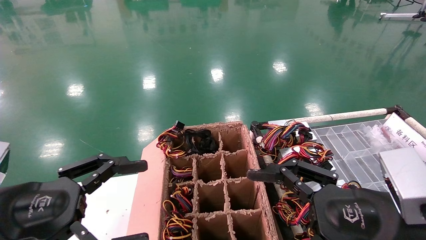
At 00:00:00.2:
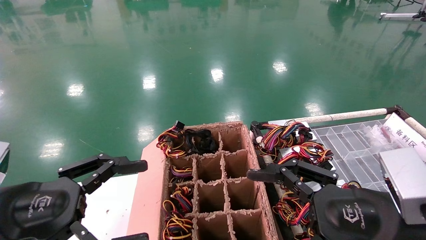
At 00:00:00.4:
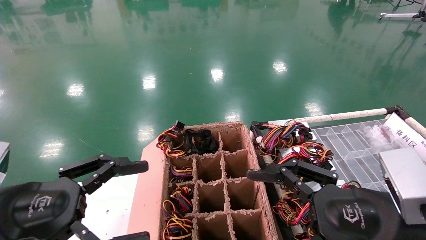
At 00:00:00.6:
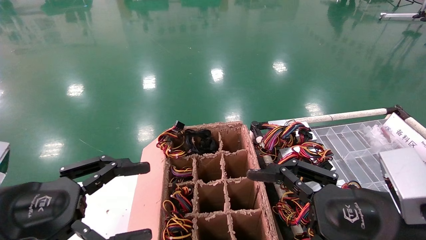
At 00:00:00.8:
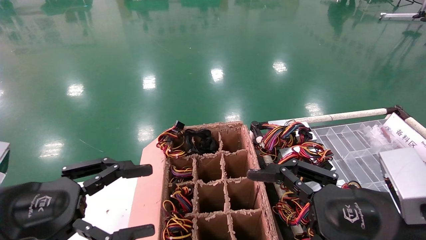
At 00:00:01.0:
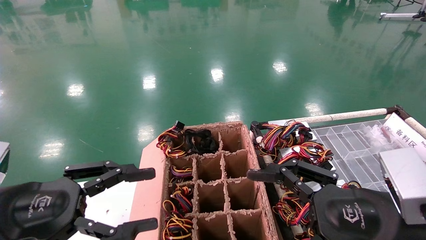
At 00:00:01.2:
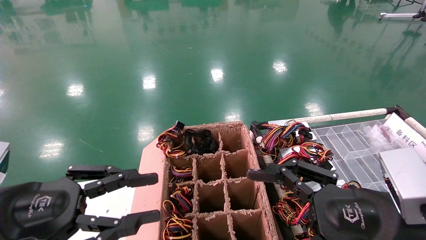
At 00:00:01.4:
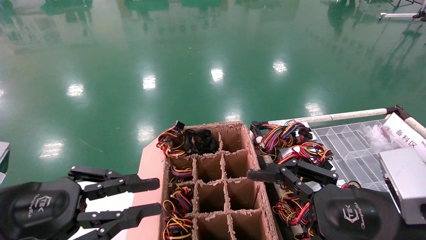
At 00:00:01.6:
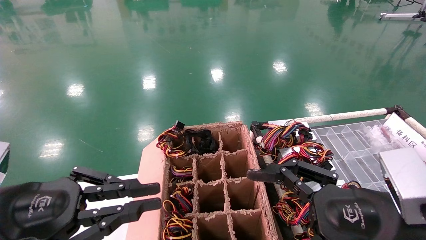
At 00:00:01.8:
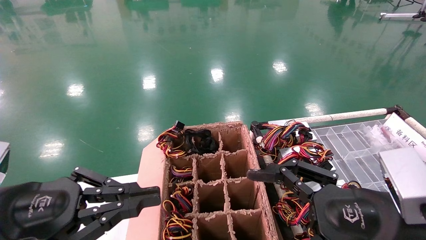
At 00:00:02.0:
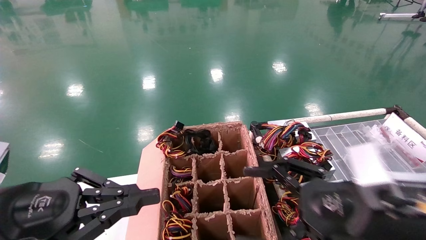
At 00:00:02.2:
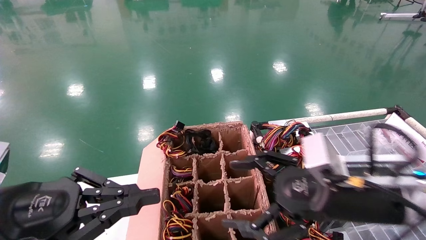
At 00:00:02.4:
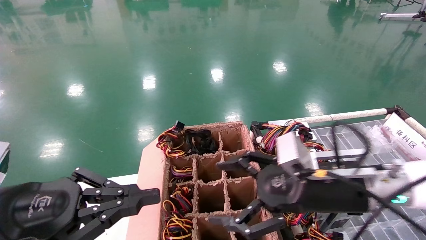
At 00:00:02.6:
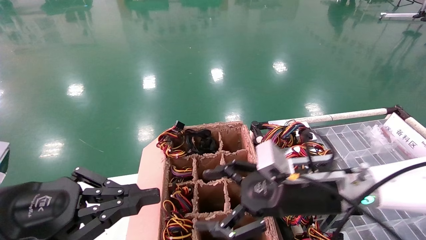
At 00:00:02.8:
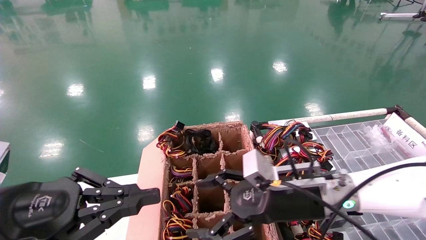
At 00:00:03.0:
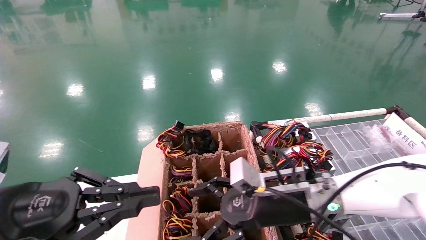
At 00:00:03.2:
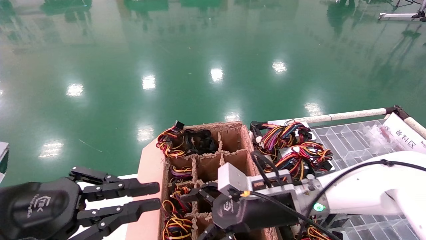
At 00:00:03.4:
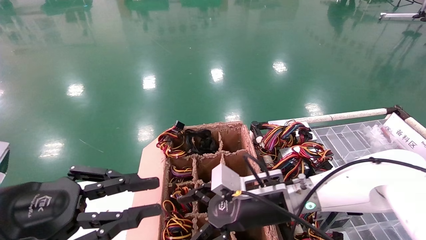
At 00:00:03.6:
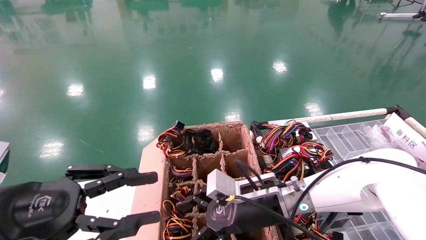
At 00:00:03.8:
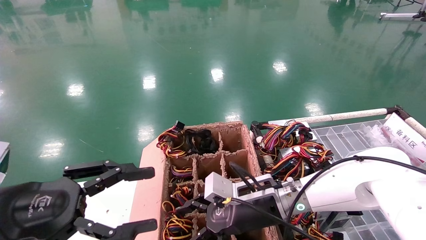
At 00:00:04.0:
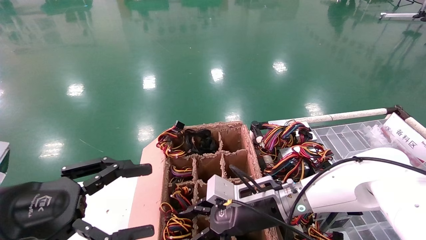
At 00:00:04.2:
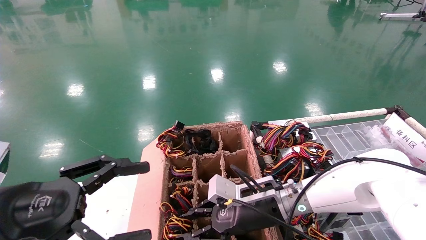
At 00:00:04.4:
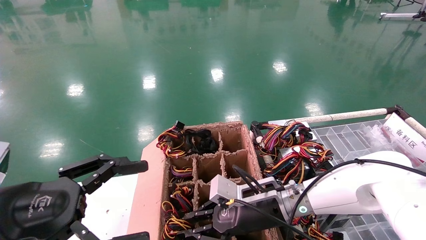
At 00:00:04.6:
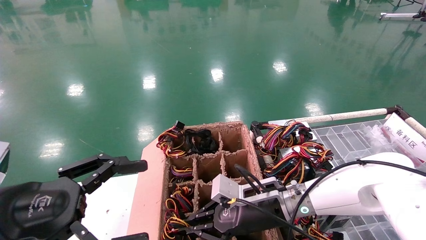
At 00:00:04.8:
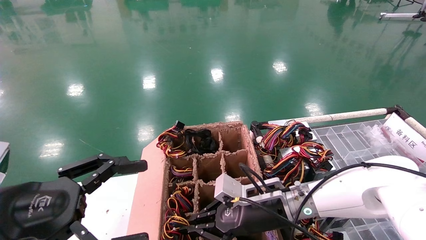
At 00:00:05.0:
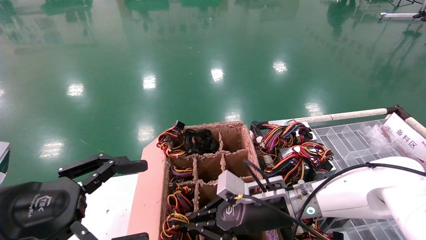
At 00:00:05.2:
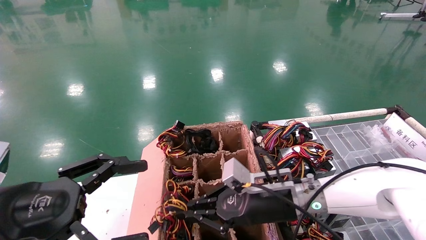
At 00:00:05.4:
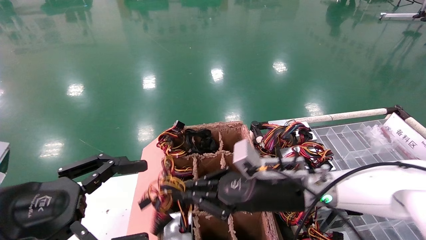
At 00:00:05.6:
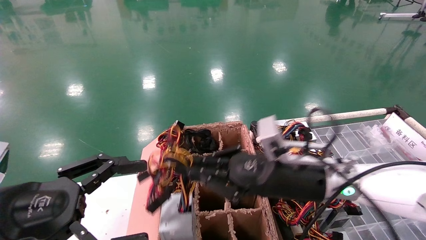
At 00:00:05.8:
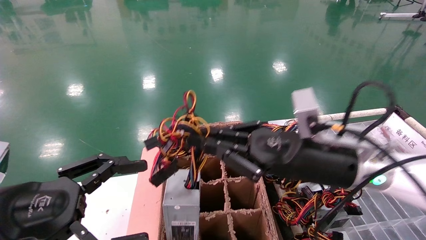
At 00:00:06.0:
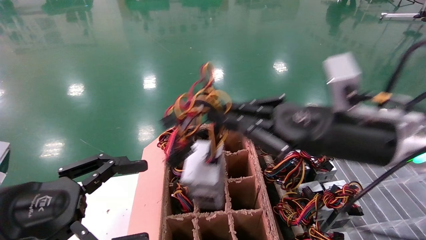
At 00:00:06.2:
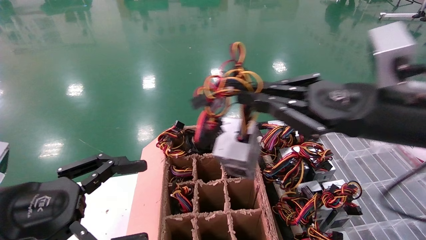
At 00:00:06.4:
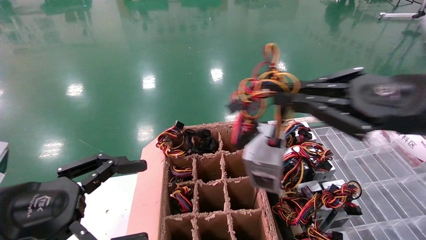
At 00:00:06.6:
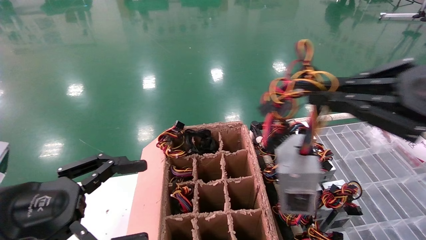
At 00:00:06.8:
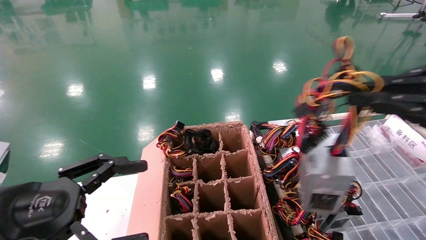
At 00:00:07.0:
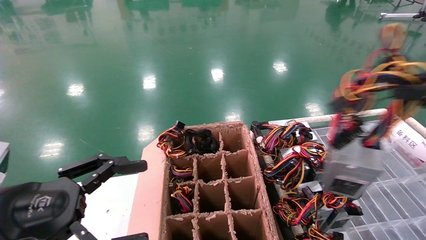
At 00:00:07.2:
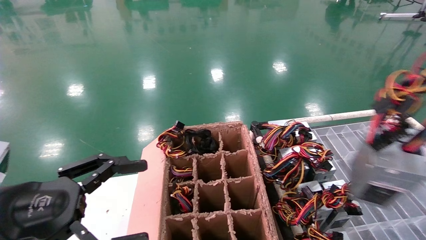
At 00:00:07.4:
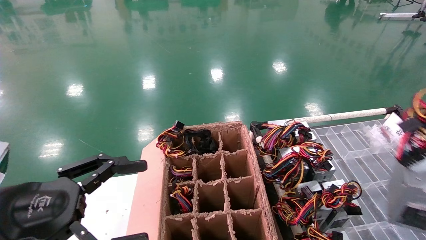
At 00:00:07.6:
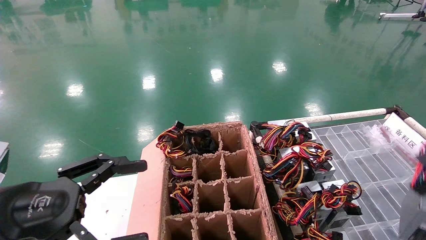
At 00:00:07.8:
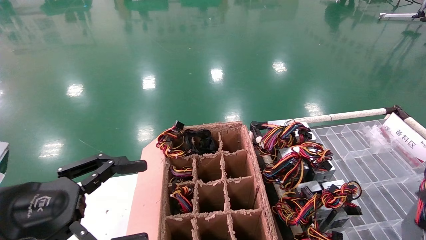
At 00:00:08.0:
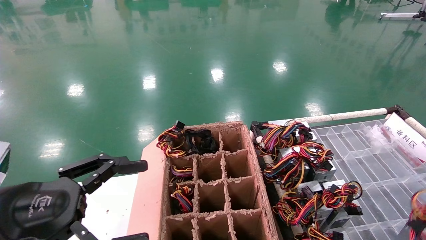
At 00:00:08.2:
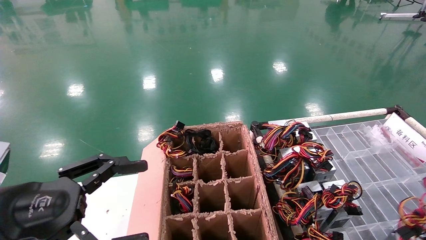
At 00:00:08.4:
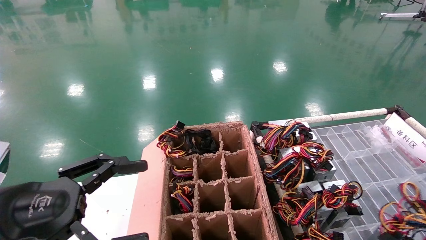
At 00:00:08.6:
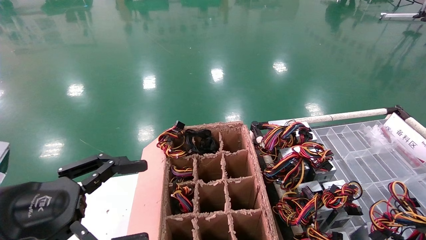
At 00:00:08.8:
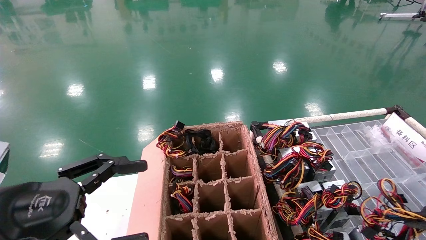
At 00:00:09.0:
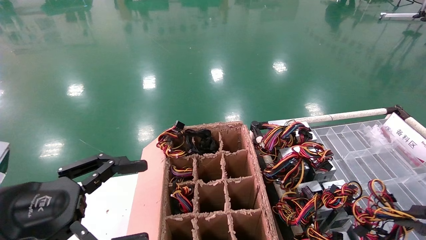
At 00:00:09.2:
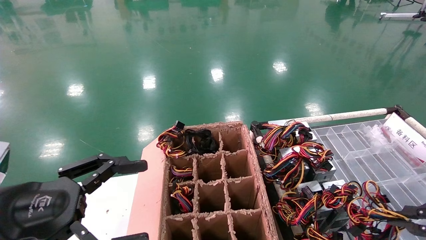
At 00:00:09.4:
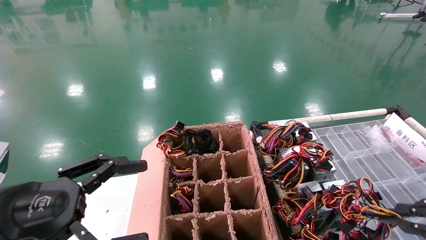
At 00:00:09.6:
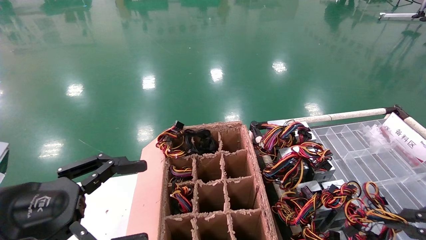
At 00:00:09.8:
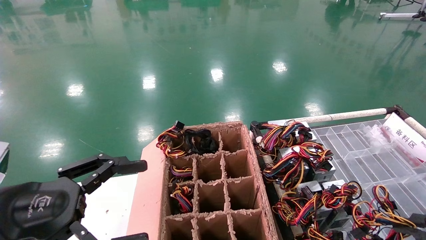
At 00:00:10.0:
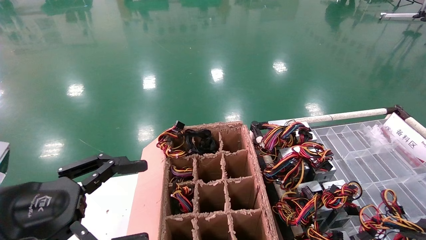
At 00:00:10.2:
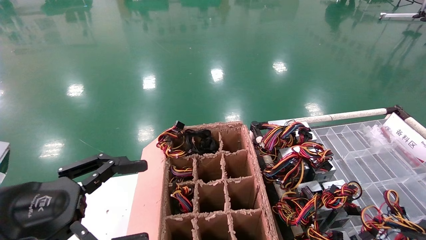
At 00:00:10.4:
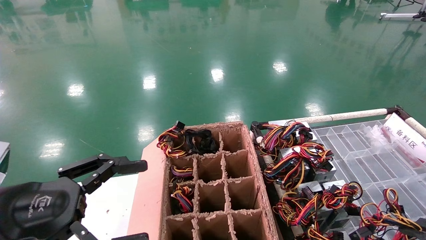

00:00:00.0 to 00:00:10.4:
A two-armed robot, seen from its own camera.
Step, 00:00:02.2 to 00:00:04.8: Grab and lift the power supply from the large box.
00:00:00.0 to 00:00:01.4: The left gripper closes up.
00:00:01.4 to 00:00:03.0: The right gripper shifts roughly 20 cm forward and to the left.
00:00:03.0 to 00:00:04.4: The right gripper moves some 5 cm, and closes its fingers. Meanwhile the left gripper opens.
00:00:04.4 to 00:00:06.0: The right gripper is displaced upward, to the right and backward by approximately 20 cm.
00:00:06.0 to 00:00:07.4: The right gripper shifts about 30 cm backward and to the right.
00:00:07.4 to 00:00:09.0: The right gripper moves downward and forward, some 15 cm.
00:00:09.0 to 00:00:10.4: The right gripper moves downward and to the right, roughly 10 cm.

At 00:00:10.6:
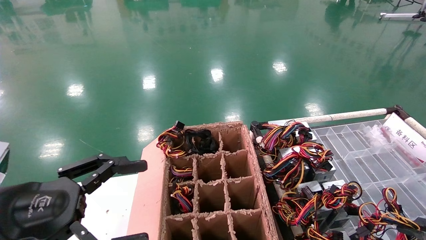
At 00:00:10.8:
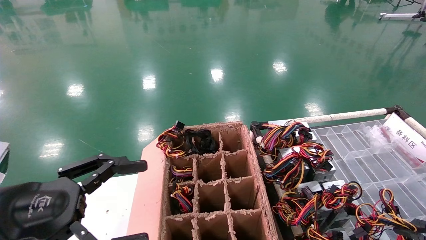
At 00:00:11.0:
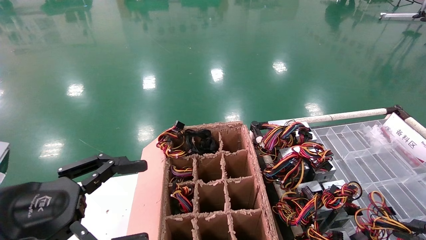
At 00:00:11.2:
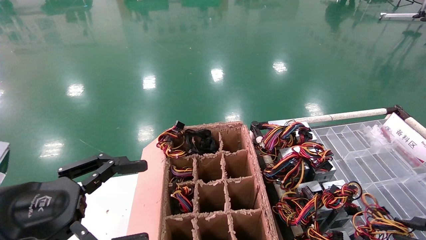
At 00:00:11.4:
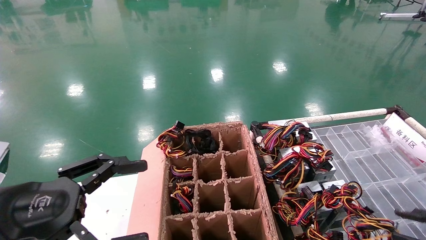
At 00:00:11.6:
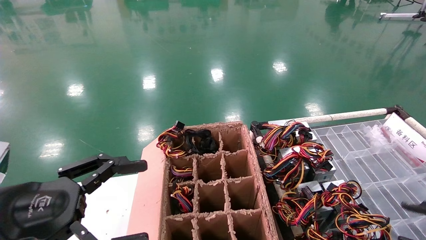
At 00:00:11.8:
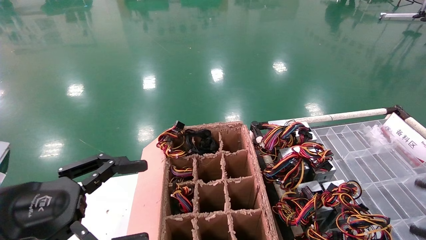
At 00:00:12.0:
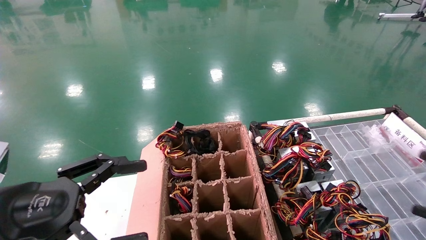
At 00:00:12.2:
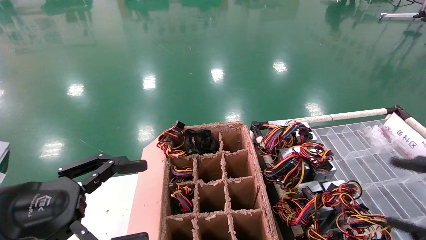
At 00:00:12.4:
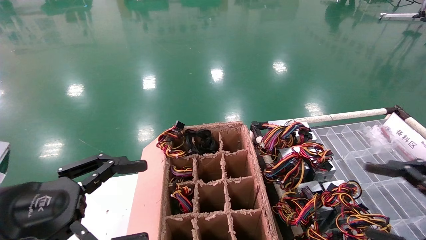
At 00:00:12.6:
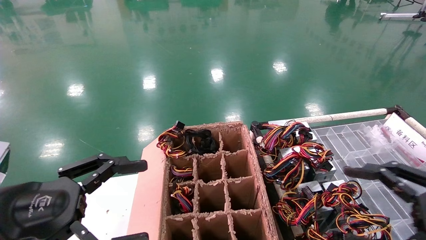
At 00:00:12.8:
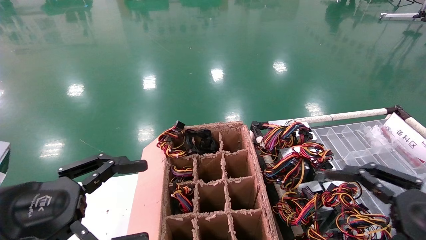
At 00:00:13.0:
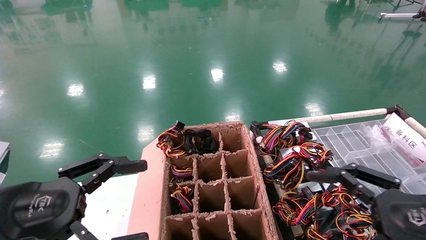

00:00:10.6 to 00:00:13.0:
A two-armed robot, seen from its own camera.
00:00:10.6 to 00:00:11.8: The right gripper changes place by approximately 5 cm, and opens up.
00:00:11.8 to 00:00:13.0: The right gripper travels to the left by some 15 cm, and opens its fingers.
